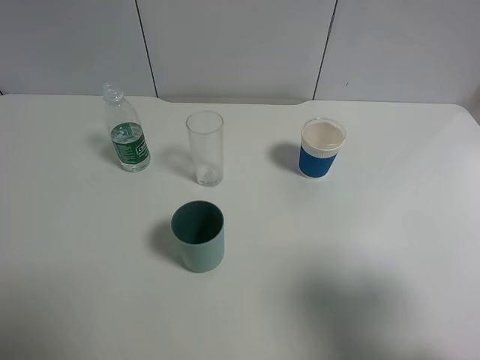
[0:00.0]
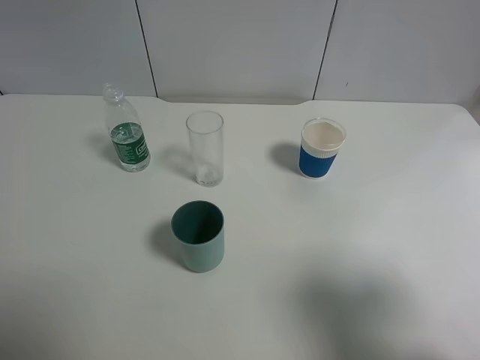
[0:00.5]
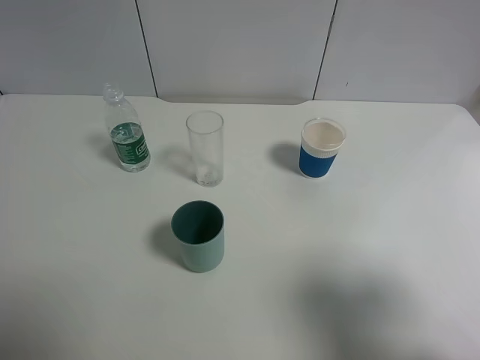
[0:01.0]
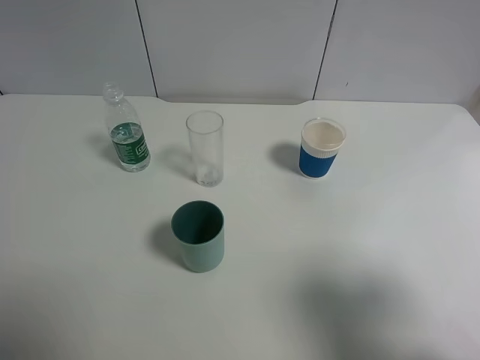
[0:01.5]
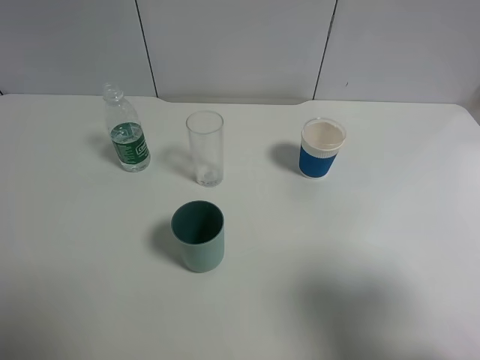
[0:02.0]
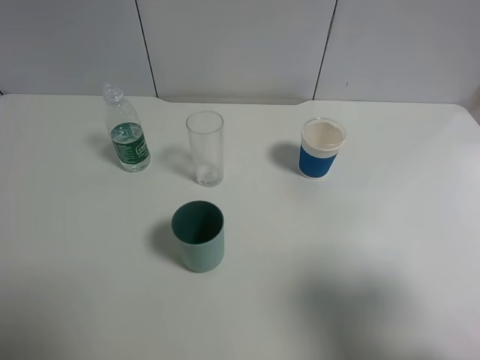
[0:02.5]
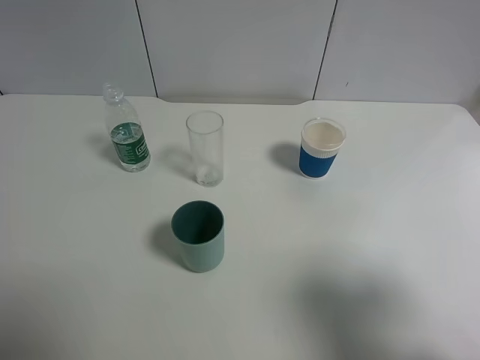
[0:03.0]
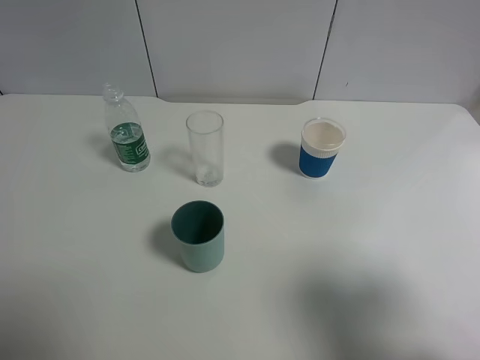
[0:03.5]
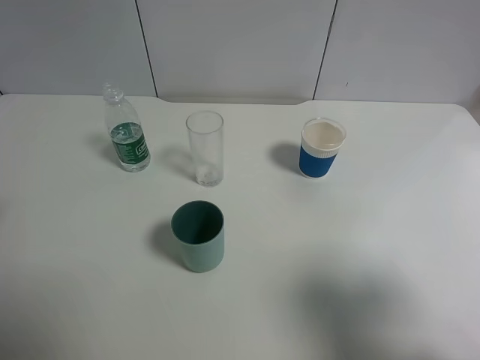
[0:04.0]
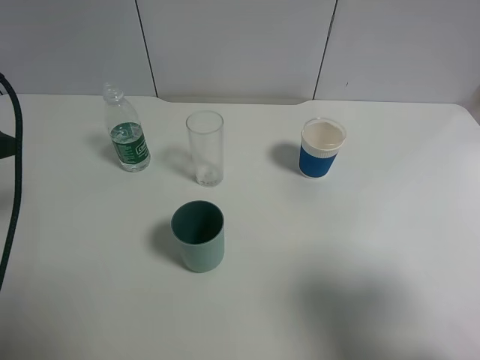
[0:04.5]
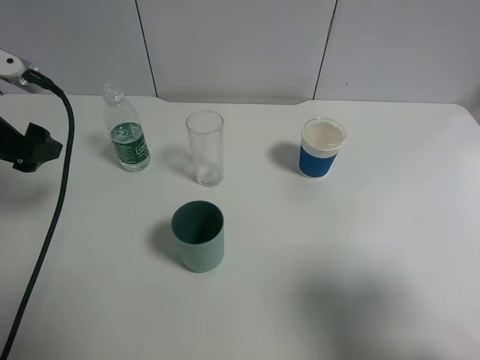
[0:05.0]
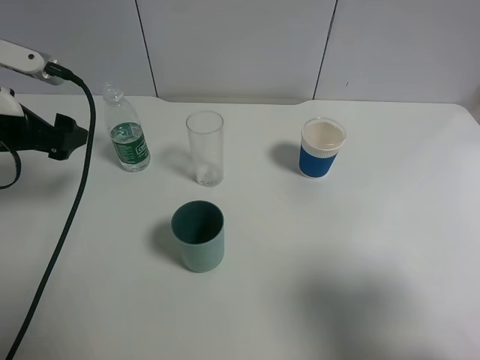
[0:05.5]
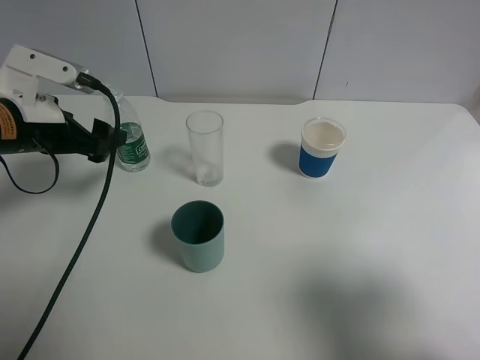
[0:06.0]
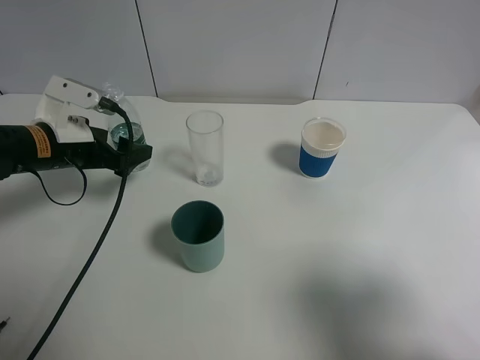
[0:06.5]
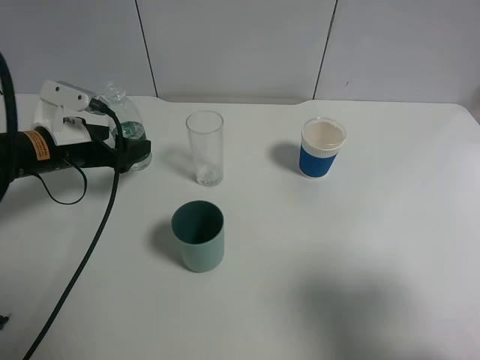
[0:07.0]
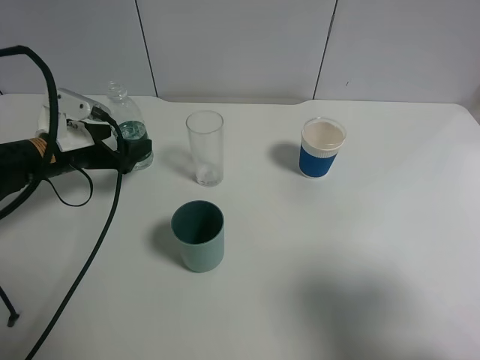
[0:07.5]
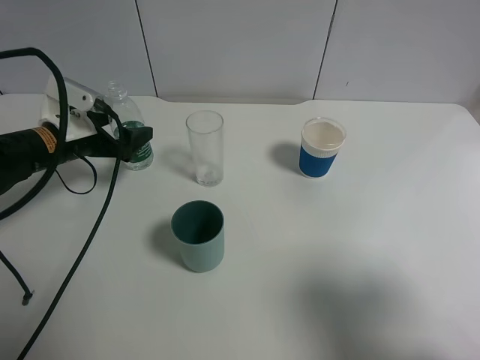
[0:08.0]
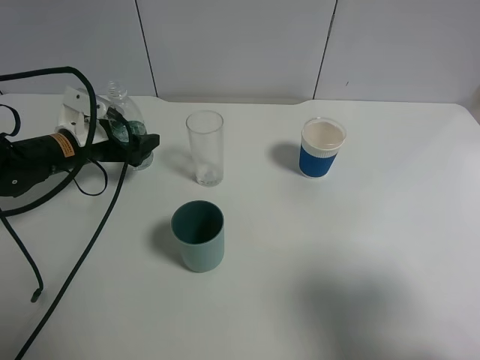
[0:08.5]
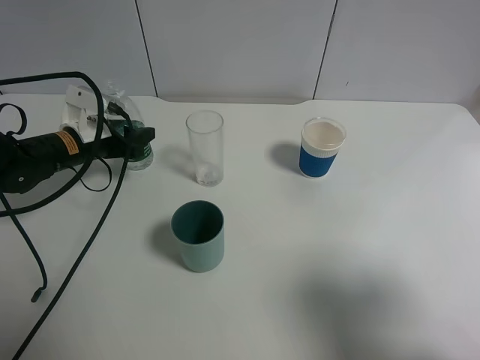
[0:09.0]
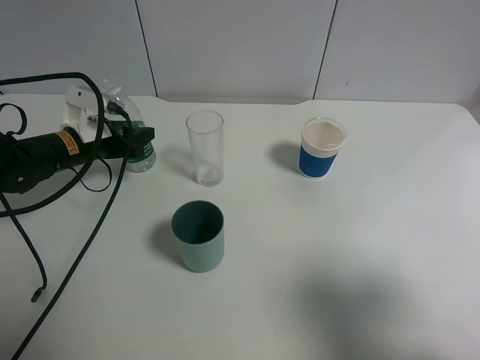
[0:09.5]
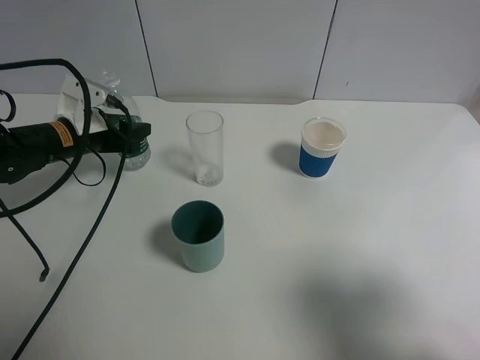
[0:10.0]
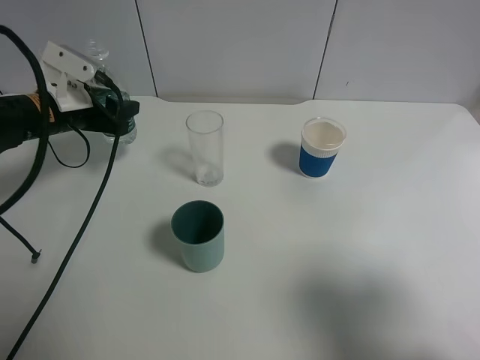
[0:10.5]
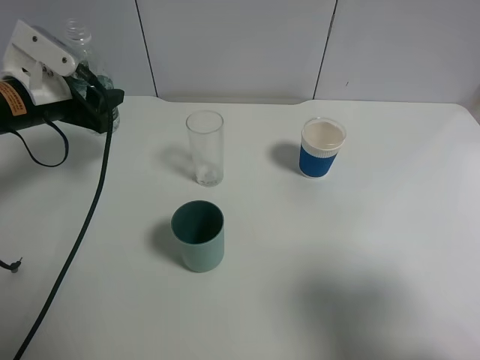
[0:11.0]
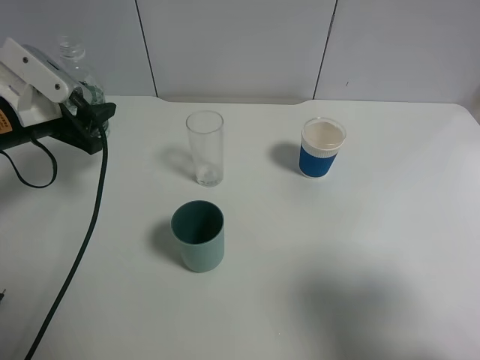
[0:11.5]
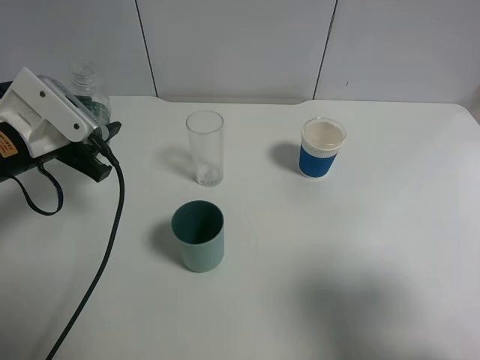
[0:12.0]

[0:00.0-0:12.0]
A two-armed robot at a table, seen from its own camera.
Task of the whole recording: use a gripper to hold the bottle of the drink and pour it into a random cup.
Step, 0:00.0 to 0:09.5: Grasp the mineral water bottle with the left gripper.
0:00.0 to 0:02.0: Neither gripper changes place.
0:04.0 to 0:06.0: The left gripper goes about 15 cm forward, downward and to the right.
0:06.0 to 0:08.0: The left gripper moves downward and forward, about 10 cm.
0:08.0 to 0:10.0: The left gripper closes up.
0:10.0 to 0:12.0: The left gripper moves backward and upward, about 10 cm.

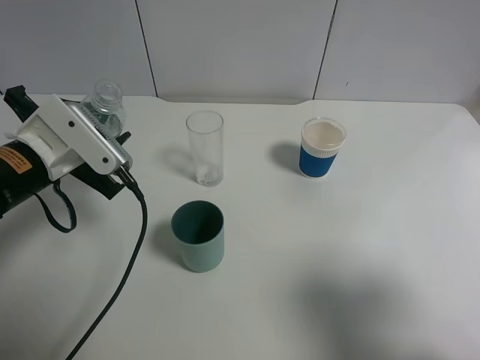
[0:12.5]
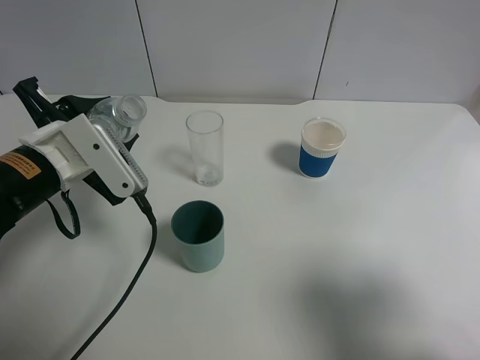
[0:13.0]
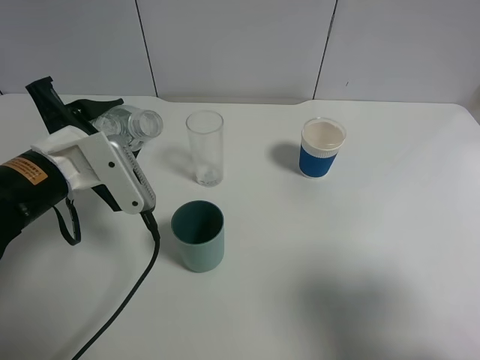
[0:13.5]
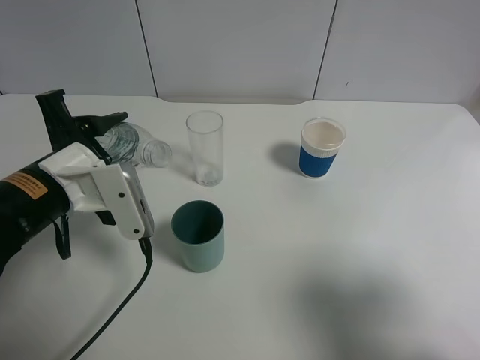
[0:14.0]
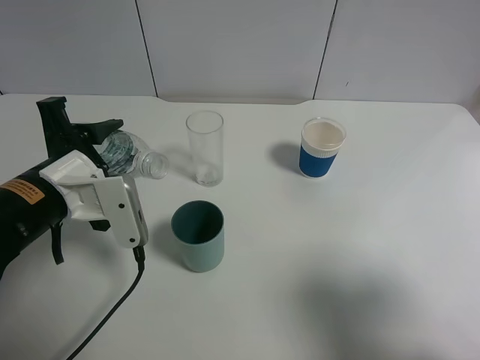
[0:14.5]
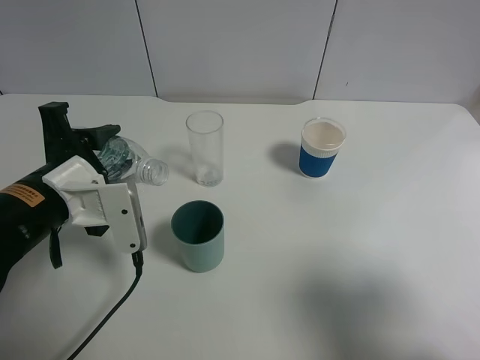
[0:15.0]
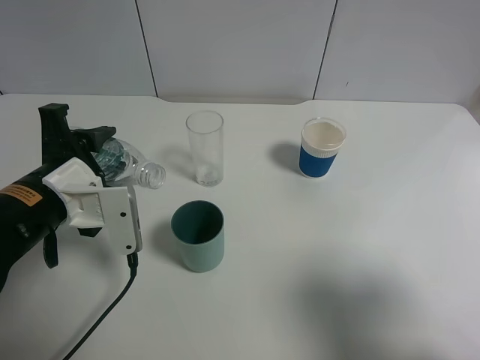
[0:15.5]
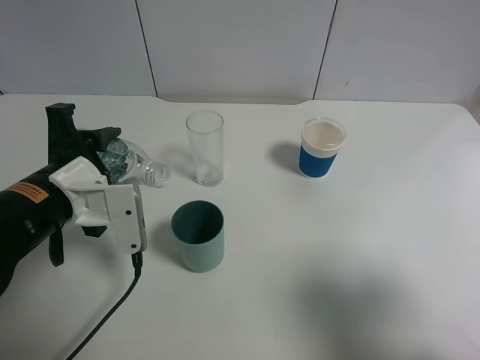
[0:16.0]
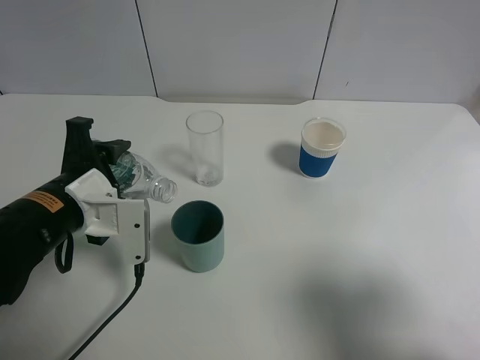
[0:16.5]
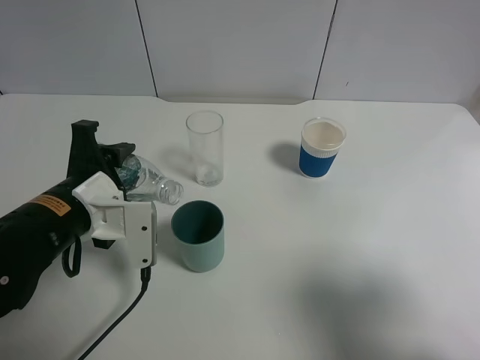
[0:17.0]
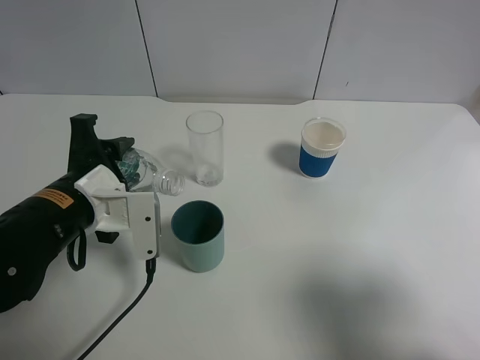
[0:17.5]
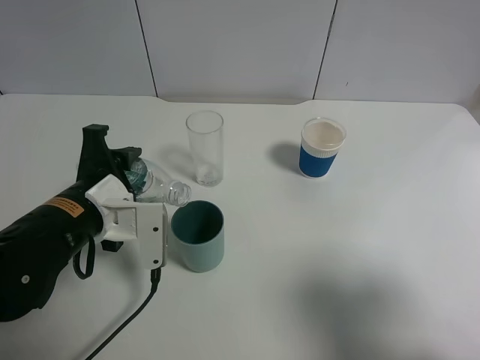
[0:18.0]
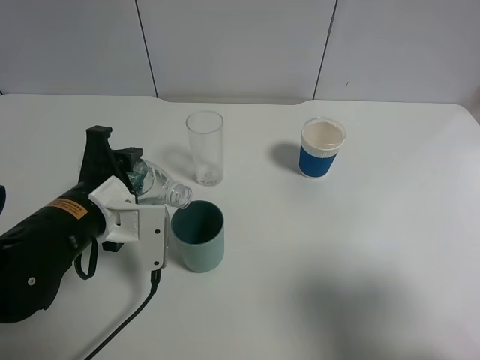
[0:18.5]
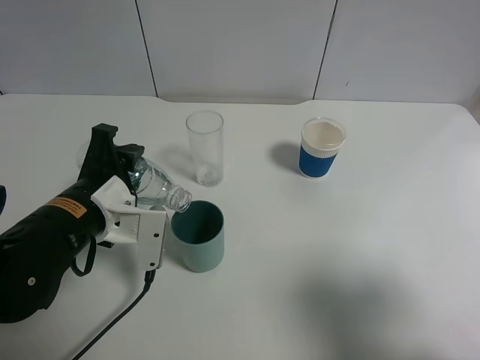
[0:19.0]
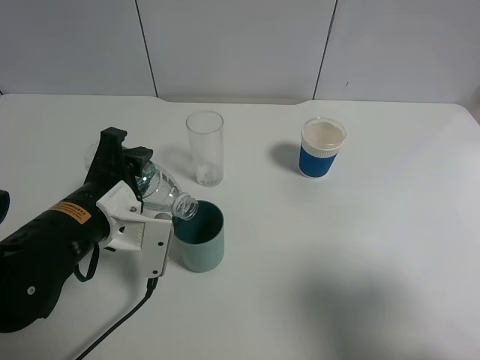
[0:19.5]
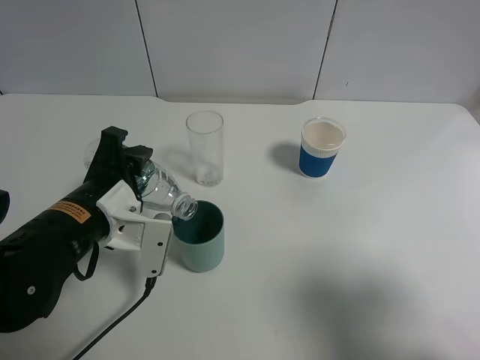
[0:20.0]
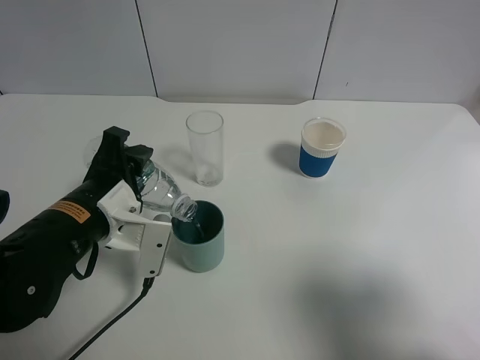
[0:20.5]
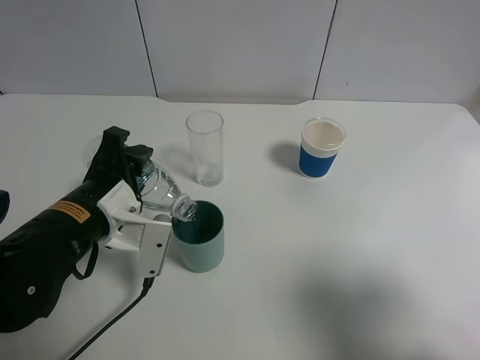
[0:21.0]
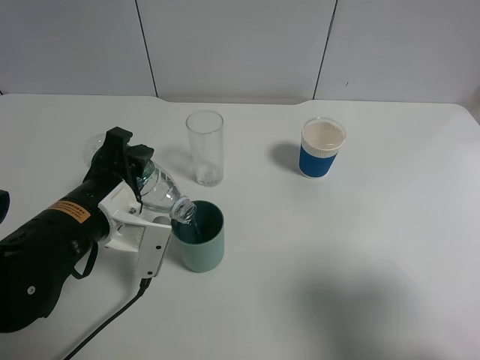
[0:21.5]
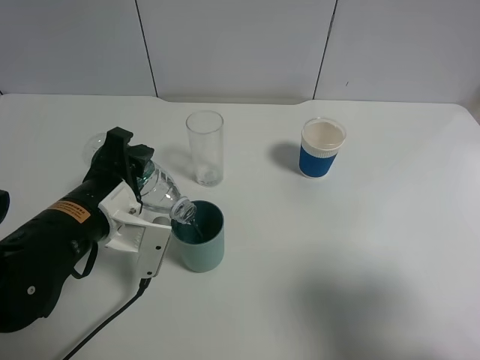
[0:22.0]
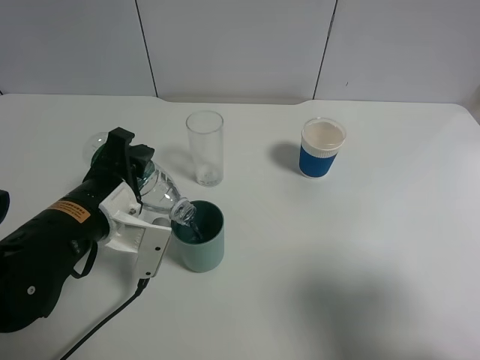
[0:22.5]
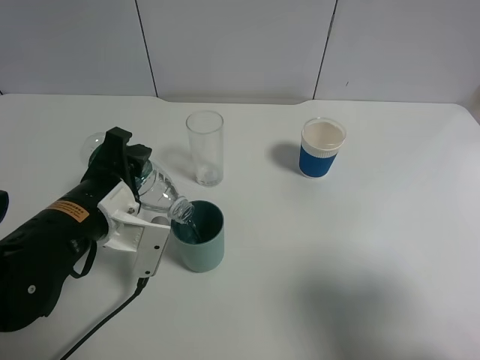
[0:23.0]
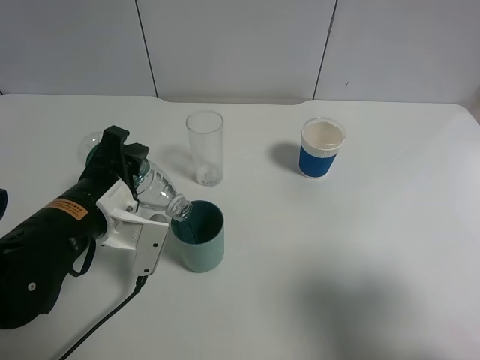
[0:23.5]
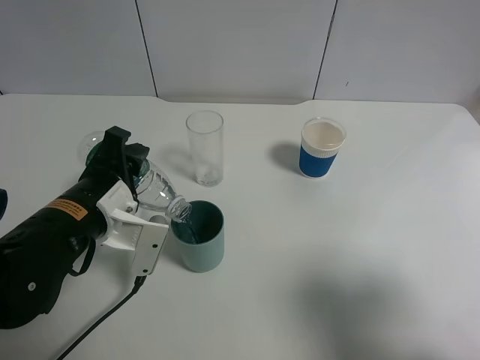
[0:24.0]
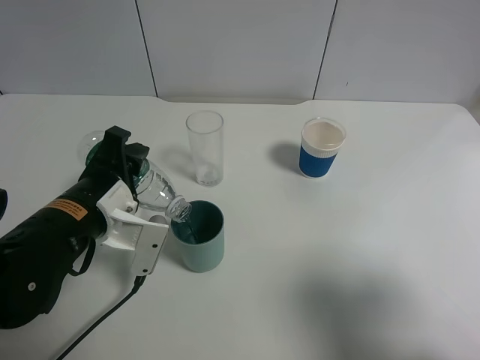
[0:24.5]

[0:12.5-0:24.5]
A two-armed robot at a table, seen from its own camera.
Task of the whole recording: use a gripper to hold the bottle of the drink and pour it into a random cup.
0:14.5 to 0:18.5: The grippers stay close to where they were, moving slightly.
0:18.5 to 0:20.5: The grippers make only small movements.
0:20.5 to 0:22.5: Neither gripper changes place.
0:22.5 to 0:24.5: Neither gripper changes place.

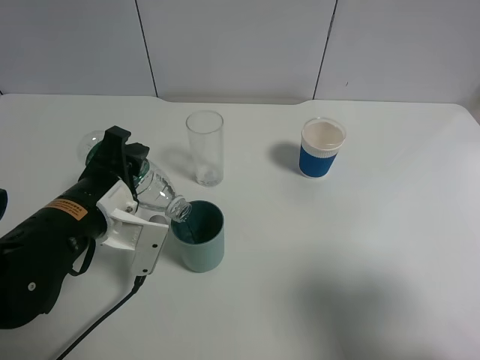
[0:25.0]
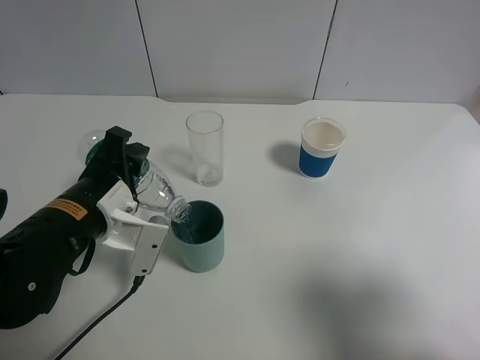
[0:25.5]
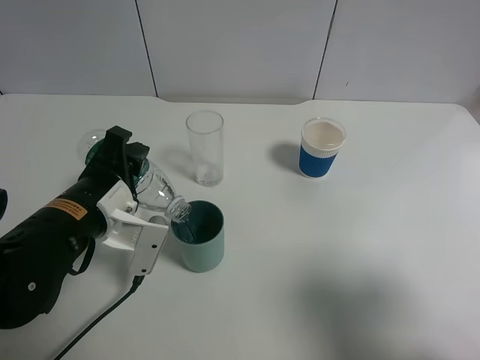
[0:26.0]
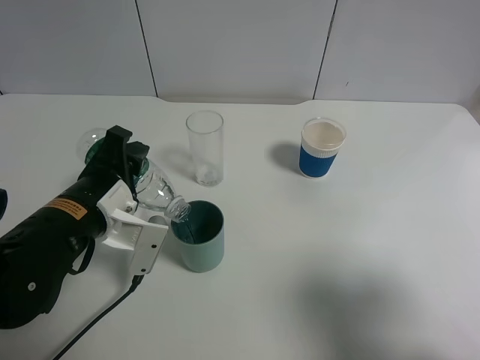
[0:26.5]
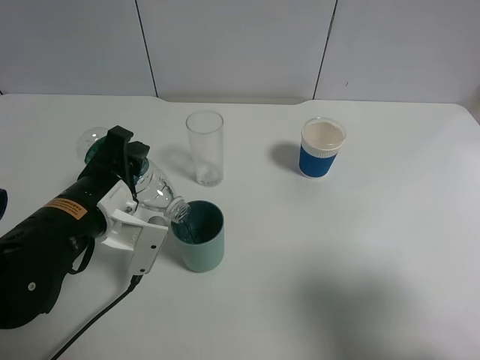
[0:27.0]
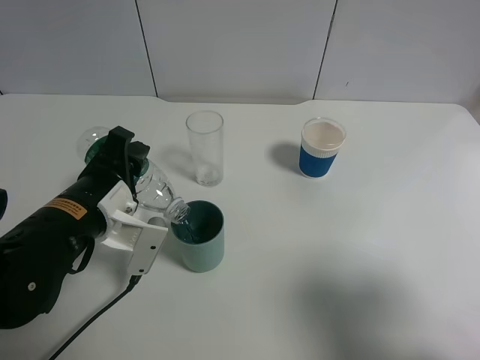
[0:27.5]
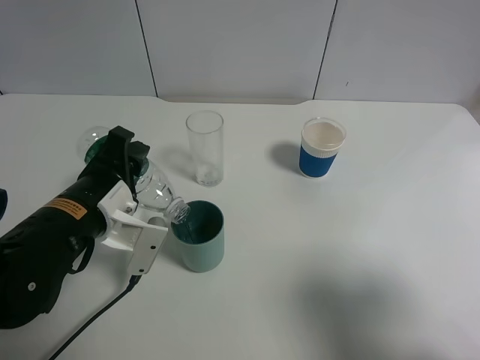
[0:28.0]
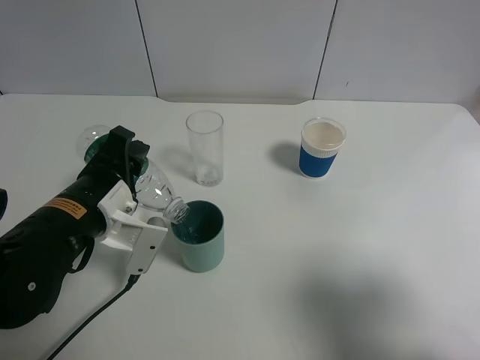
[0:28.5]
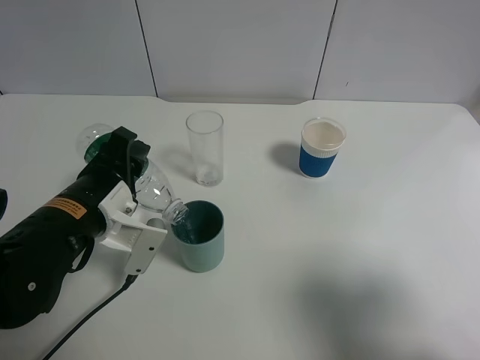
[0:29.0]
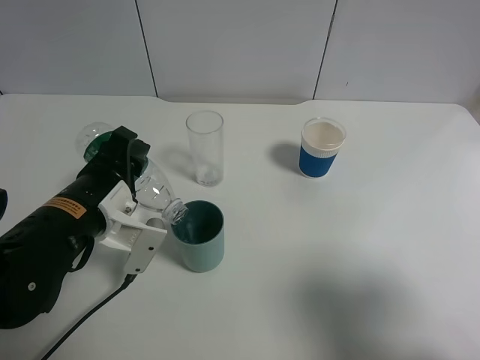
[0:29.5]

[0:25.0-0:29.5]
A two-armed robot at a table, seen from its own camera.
Task of the whole recording: use a gripper to hold the bottle of the drink and pour it into a random cup.
0:25.0 to 0:27.0: Both grippers stay put.
0:27.0 to 0:29.5: Both grippers stay about where they are.
